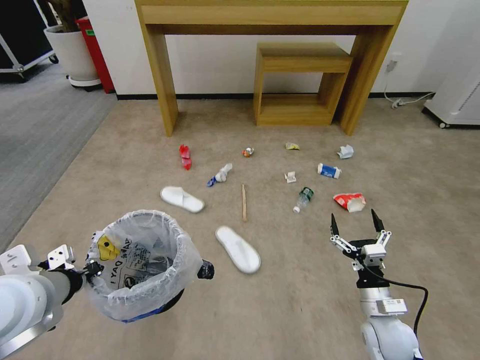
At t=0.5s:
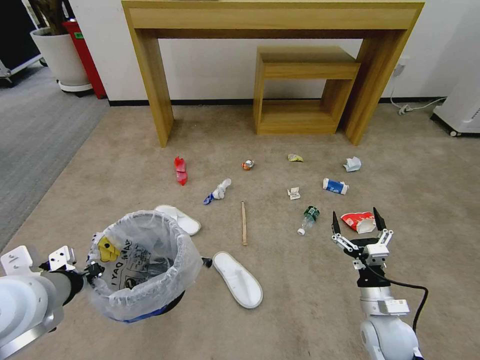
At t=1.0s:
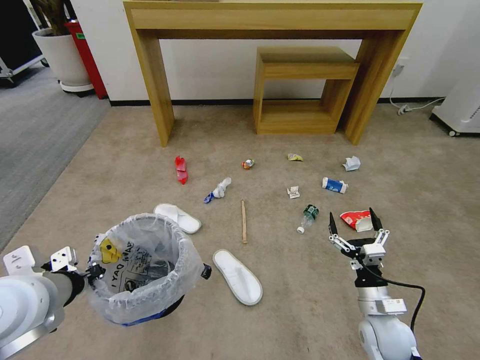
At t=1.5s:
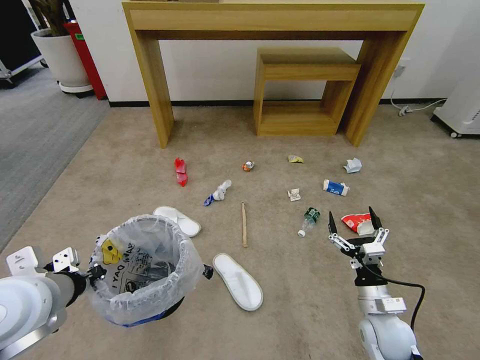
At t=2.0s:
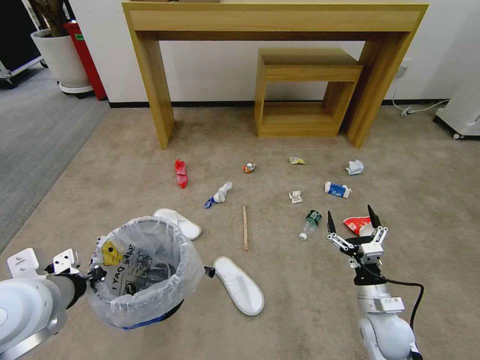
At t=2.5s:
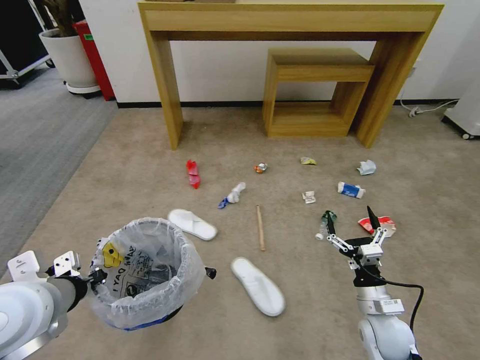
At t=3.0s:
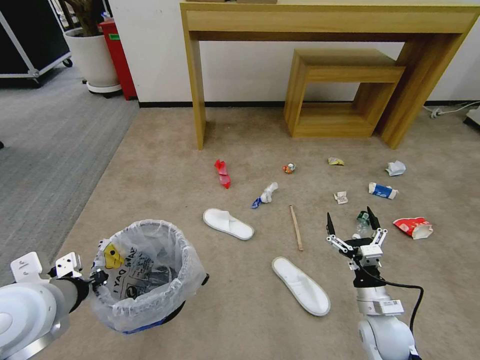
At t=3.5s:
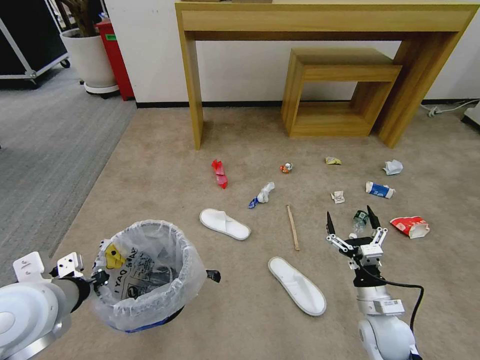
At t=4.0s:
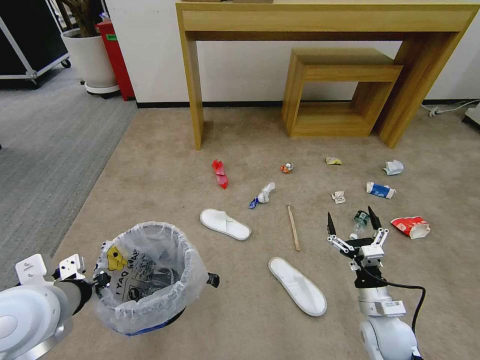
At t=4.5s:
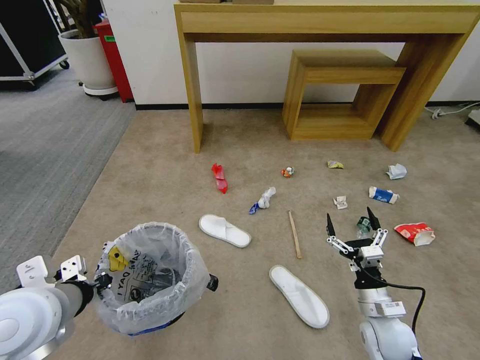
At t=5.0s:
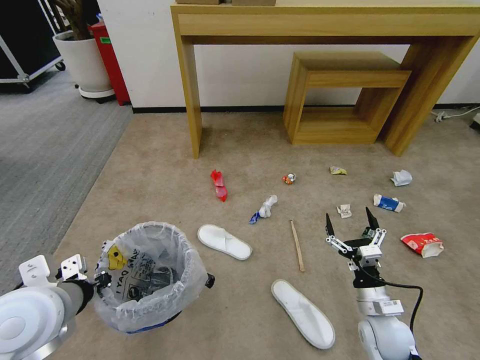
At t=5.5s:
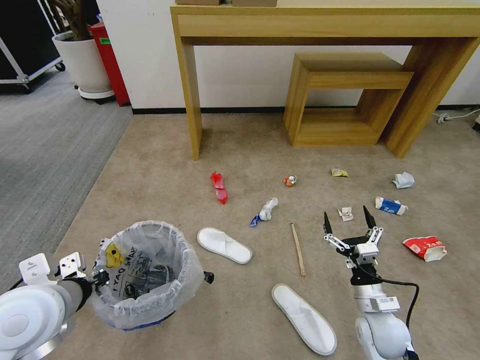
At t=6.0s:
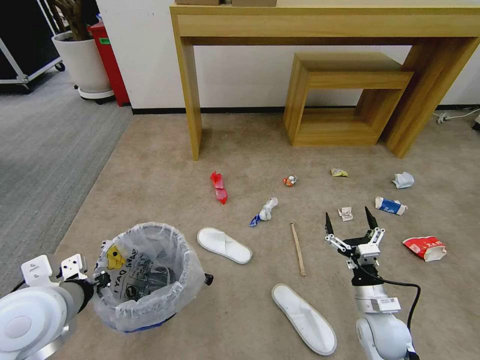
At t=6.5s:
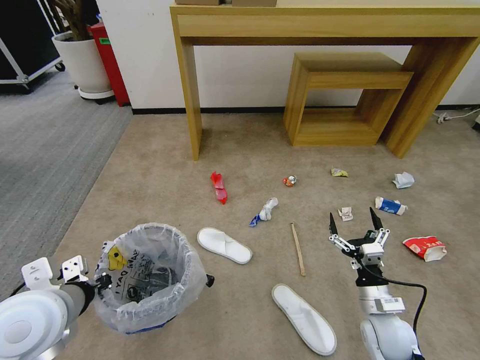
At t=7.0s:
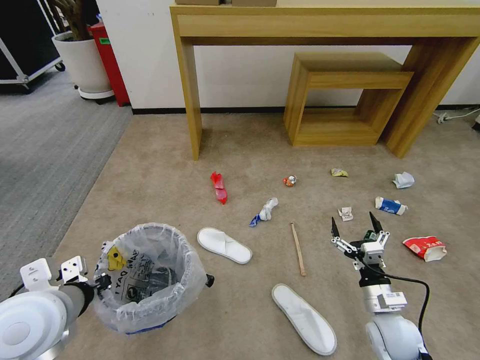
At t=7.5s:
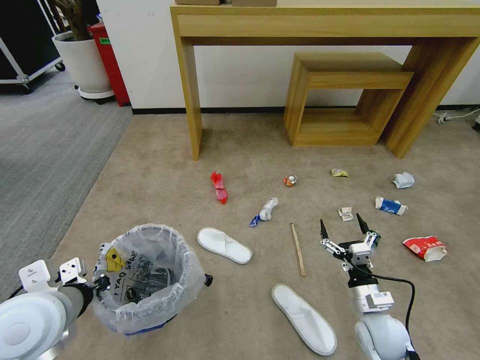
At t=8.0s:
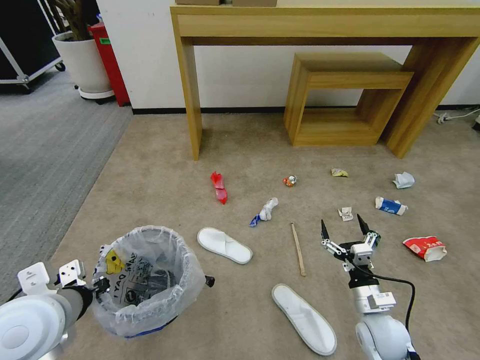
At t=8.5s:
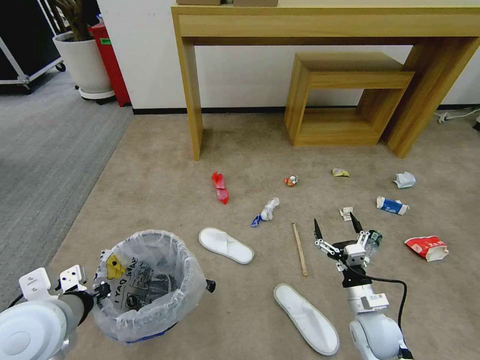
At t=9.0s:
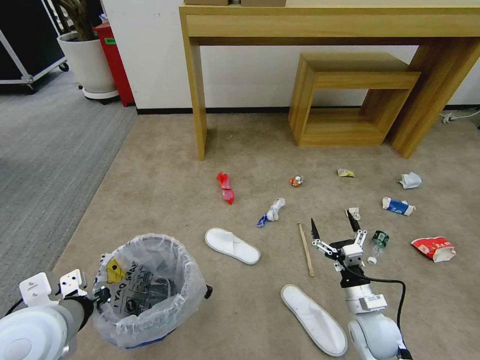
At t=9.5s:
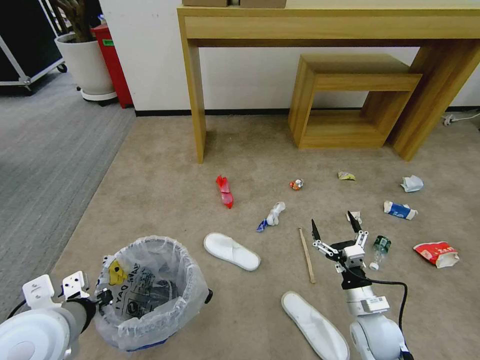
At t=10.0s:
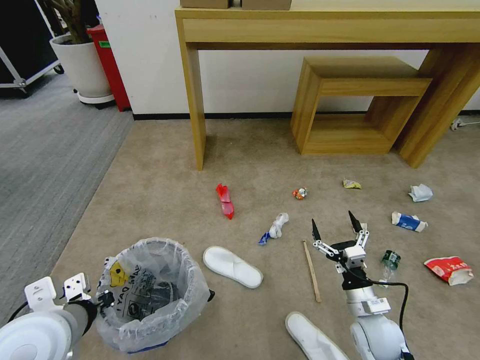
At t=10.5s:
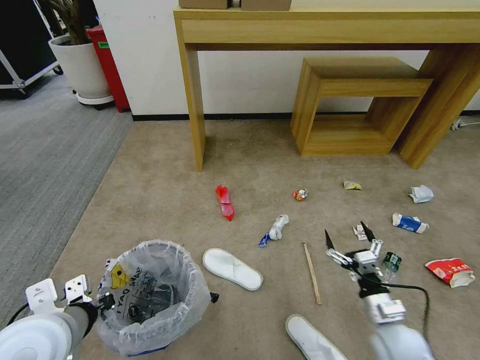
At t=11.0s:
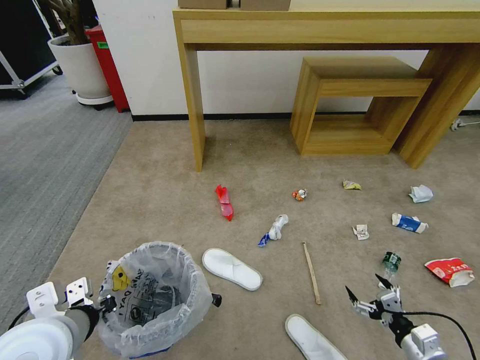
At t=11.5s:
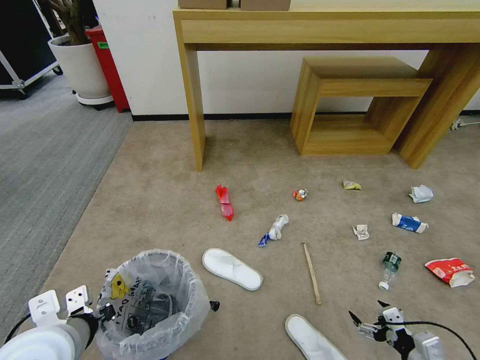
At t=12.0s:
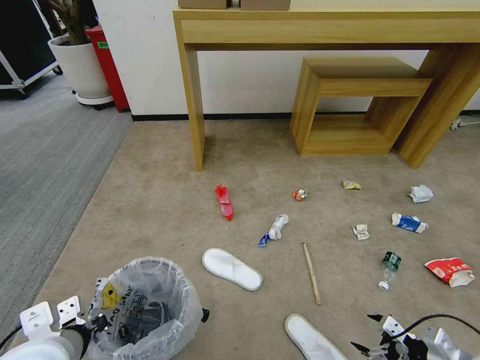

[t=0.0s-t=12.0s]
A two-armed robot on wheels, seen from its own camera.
Task of the whole recording: Pick up the trash bin and place the garbage on the floor into it.
t=6.0s to t=8.0s: The grippers stay close to where they were, moving slightly.
t=10.0s to t=12.0s: The right gripper heads to the right and backward, covering approximately 20 cm.

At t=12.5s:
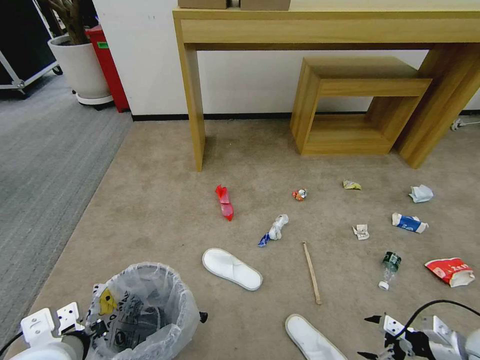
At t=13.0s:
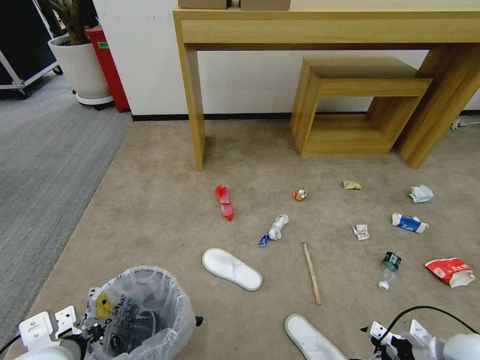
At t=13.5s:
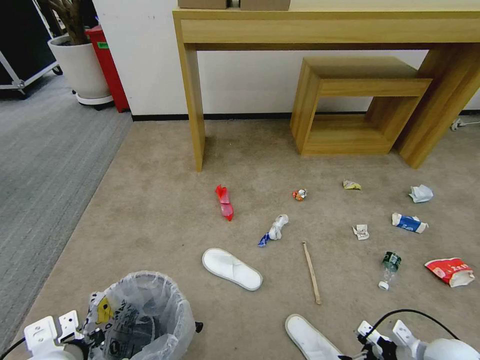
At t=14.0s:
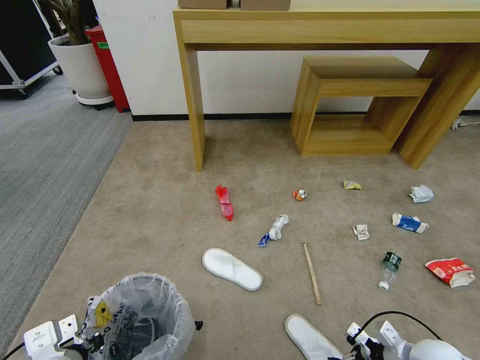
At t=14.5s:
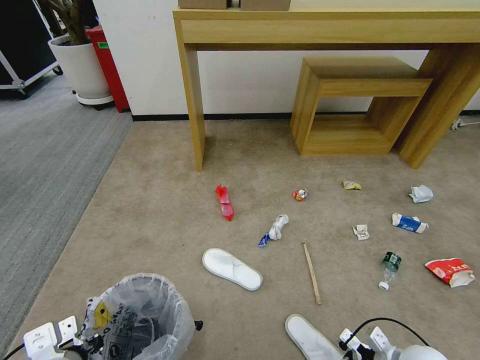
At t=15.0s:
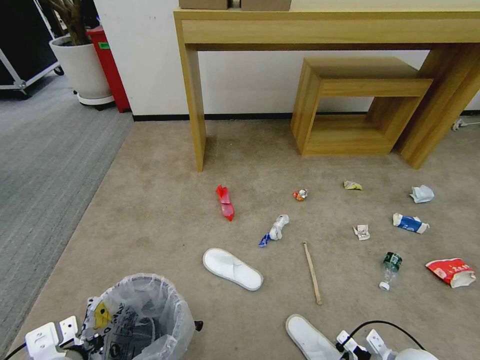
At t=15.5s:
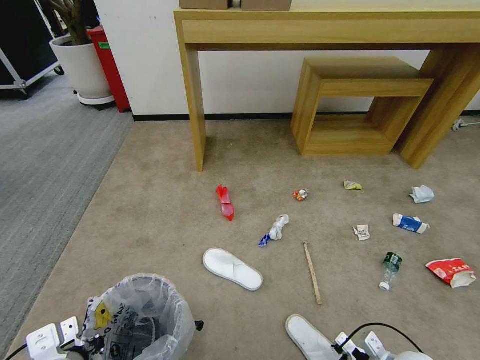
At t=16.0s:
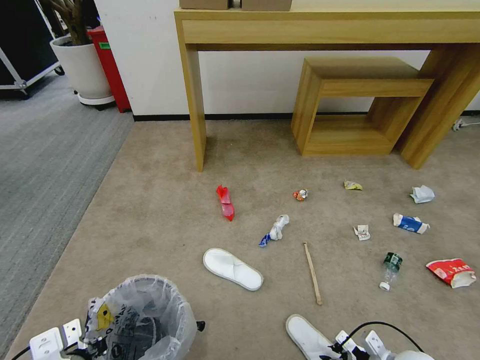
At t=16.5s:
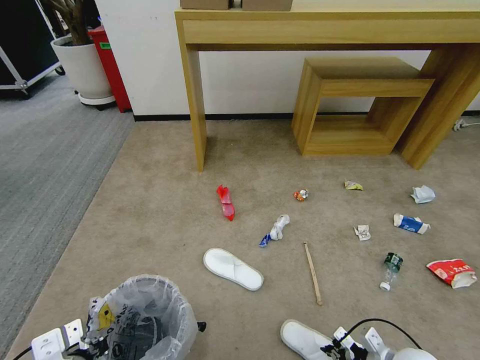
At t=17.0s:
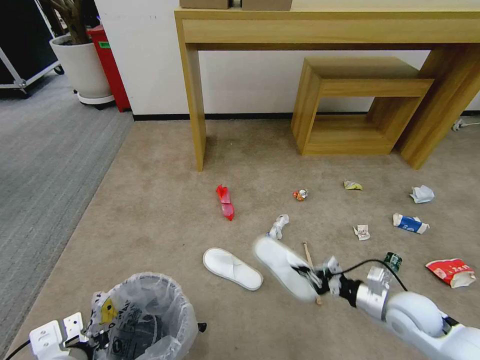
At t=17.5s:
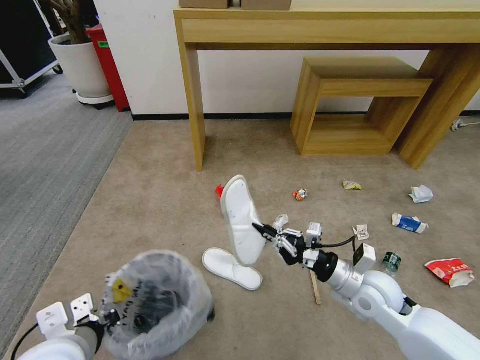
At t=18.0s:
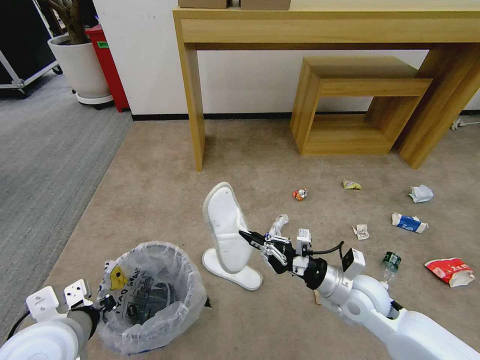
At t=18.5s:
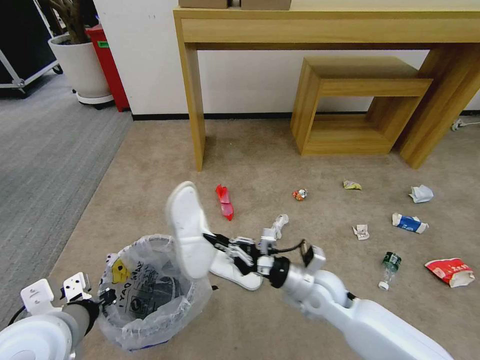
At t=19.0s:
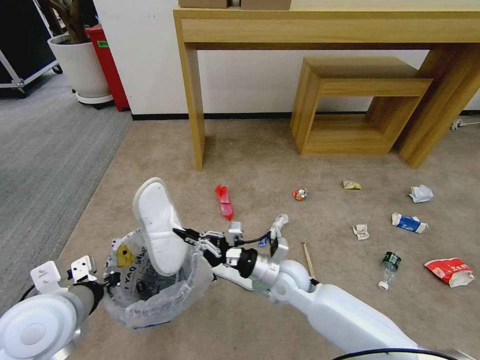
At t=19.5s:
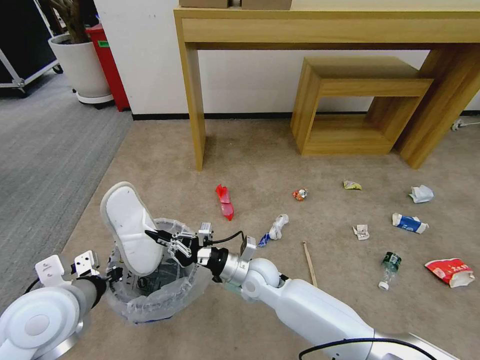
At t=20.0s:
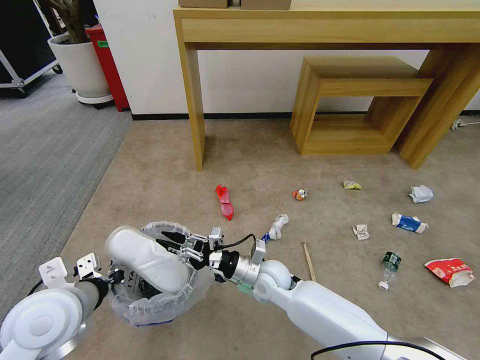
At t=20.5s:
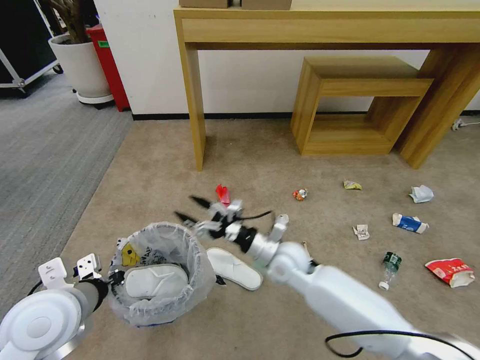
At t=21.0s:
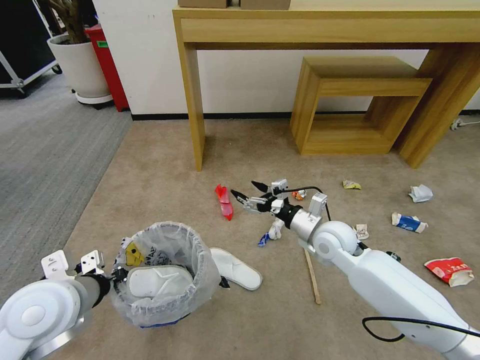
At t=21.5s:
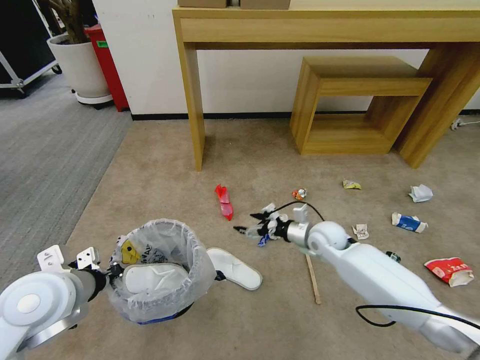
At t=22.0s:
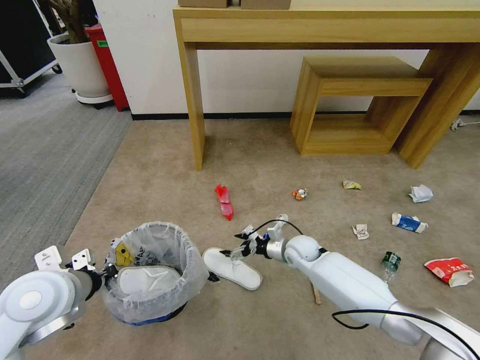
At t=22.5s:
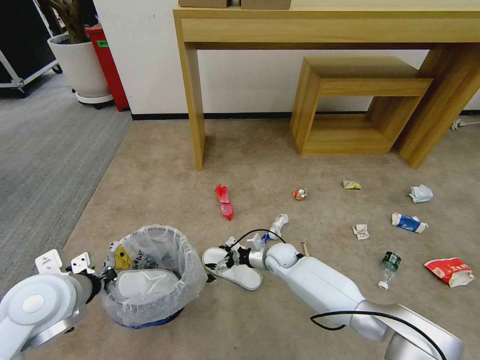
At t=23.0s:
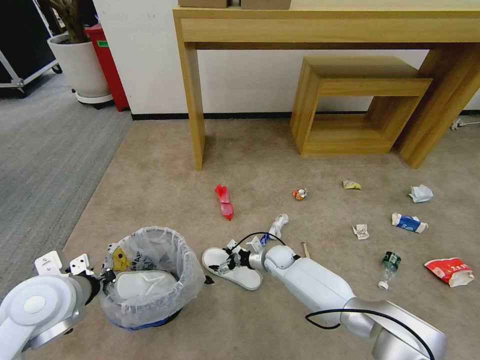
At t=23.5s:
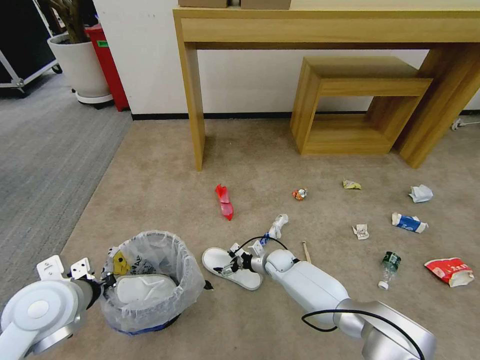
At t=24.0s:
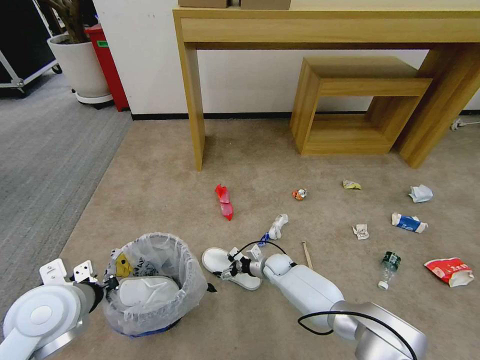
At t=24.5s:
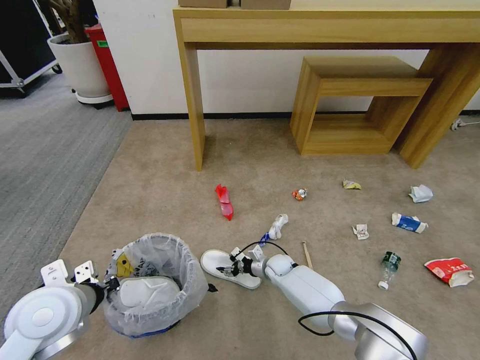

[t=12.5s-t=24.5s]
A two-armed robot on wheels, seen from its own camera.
Task of the whole recording: Pick up the trash bin and place the garbage on the floor into it.
t=12.5s to t=14.5s: The right gripper moves to the left and downward, some 15 cm.
t=14.5s to t=16.5s: The right gripper closes its fingers.
t=16.5s to t=18.5s: The left gripper travels upward and forward by approximately 10 cm, while the right gripper travels to the left, forward and upward by roughly 25 cm.
t=18.5s to t=20.5s: The right gripper is displaced forward and to the left by about 10 cm, and opens.
t=20.5s to t=22.5s: The right gripper goes approximately 15 cm downward and forward.
t=22.5s to t=24.5s: The right gripper shifts roughly 5 cm downward, and closes up.

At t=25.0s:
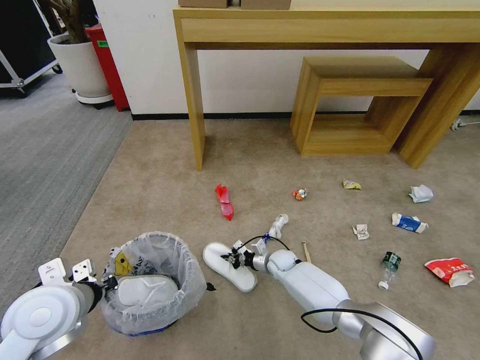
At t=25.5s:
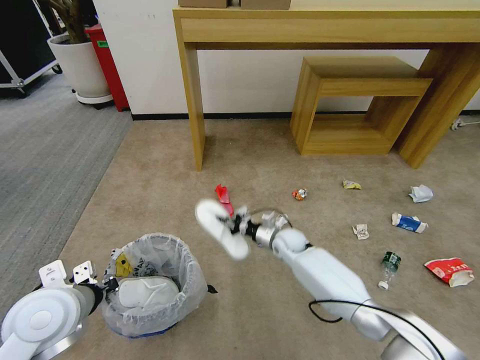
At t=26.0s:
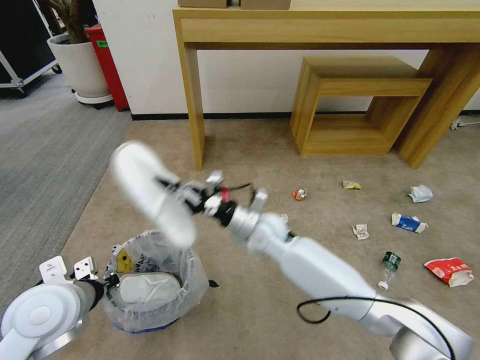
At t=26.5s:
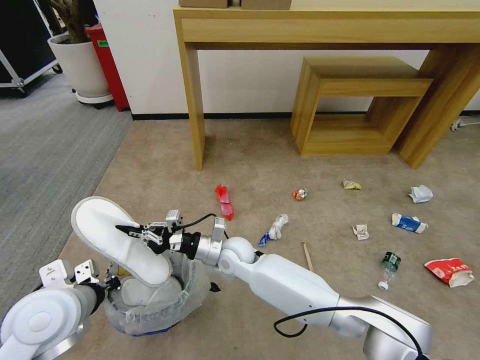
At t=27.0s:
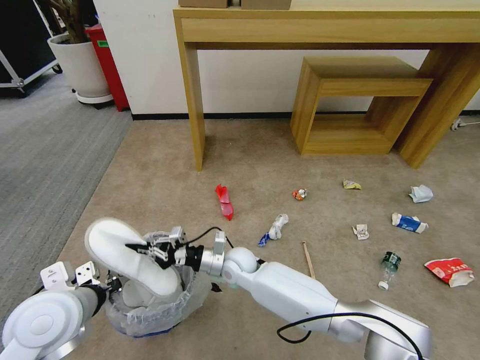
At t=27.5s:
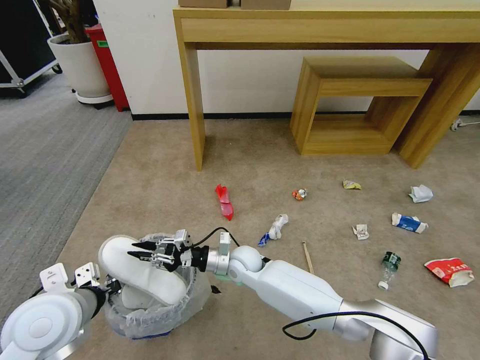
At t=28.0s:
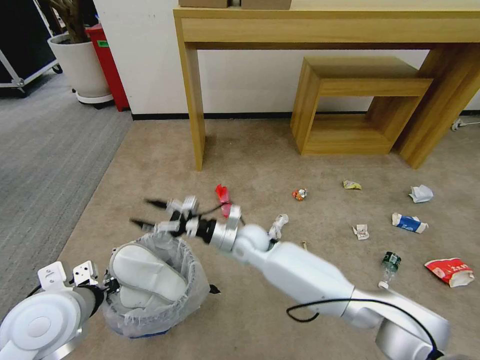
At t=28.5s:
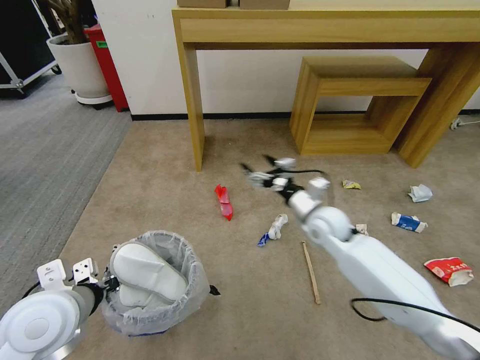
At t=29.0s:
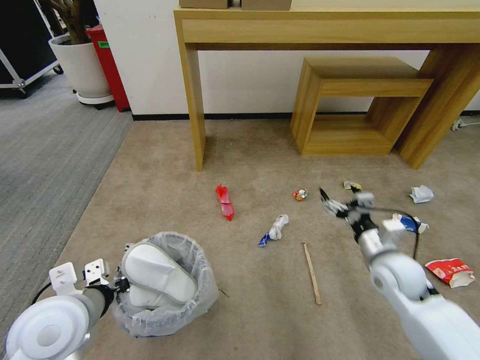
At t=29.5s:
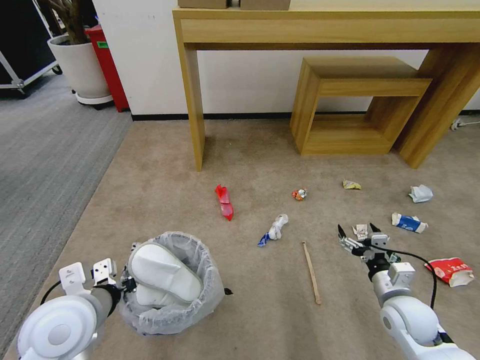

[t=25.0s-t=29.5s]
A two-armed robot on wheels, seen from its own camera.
Task of the whole recording: Pick up the trash bin and place the garbage on the floor into it.
t=25.0s to t=27.0s: The right gripper travels to the left, upward and backward by about 20 cm.
t=27.0s to t=29.5s: The right gripper is displaced to the right by about 35 cm, and opens.
